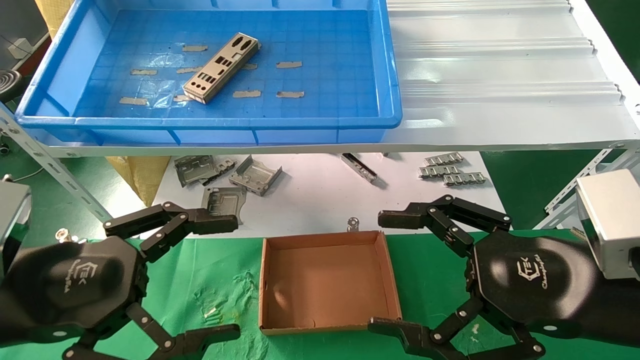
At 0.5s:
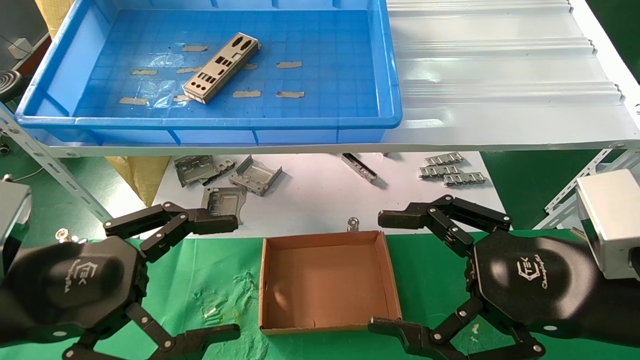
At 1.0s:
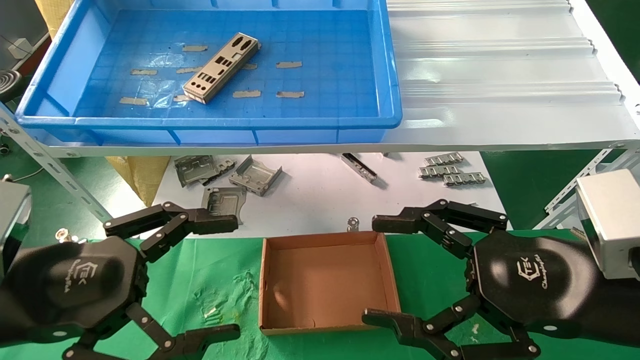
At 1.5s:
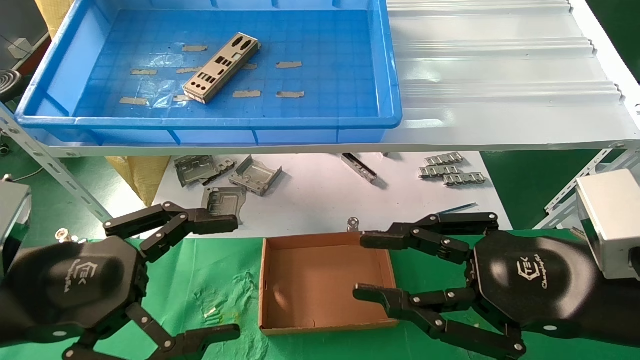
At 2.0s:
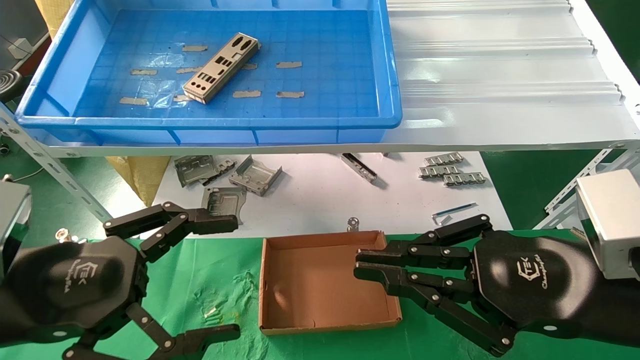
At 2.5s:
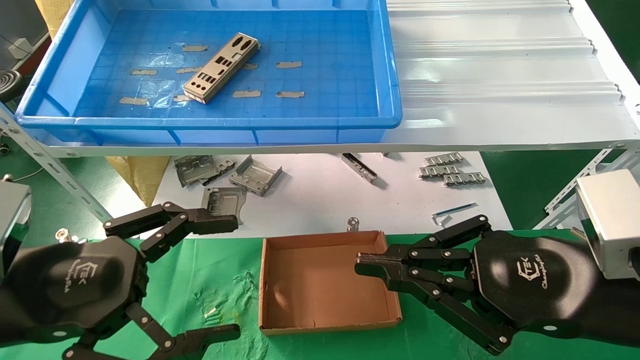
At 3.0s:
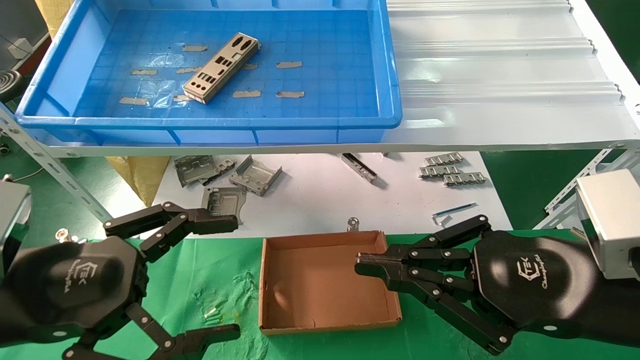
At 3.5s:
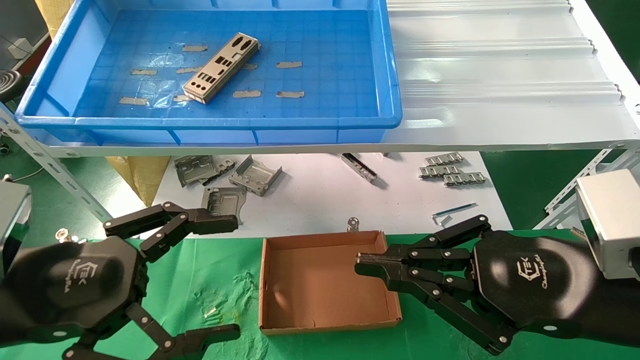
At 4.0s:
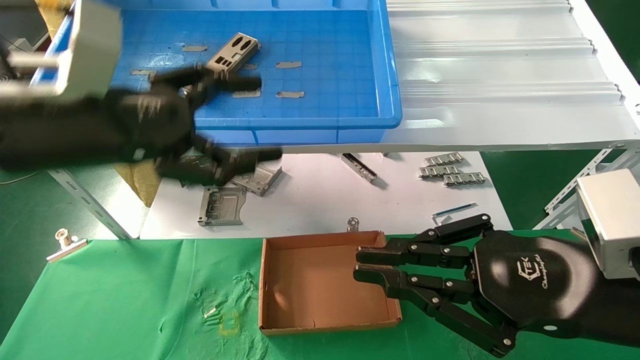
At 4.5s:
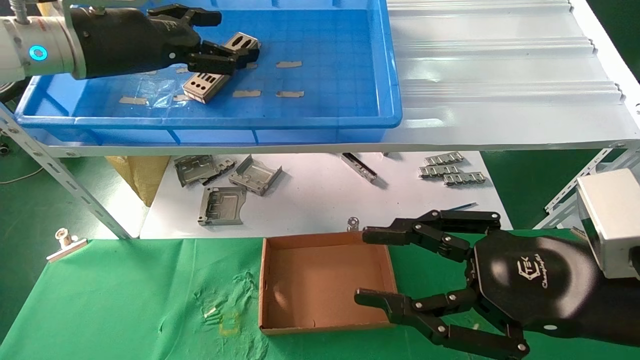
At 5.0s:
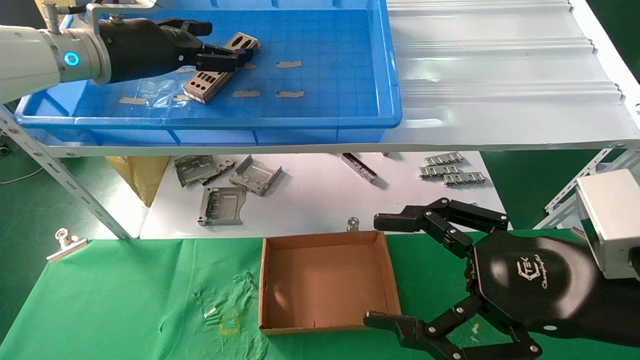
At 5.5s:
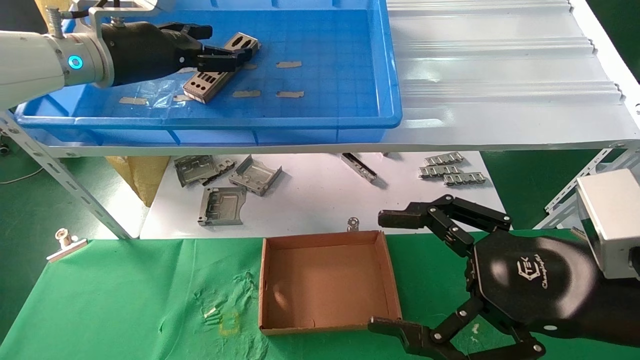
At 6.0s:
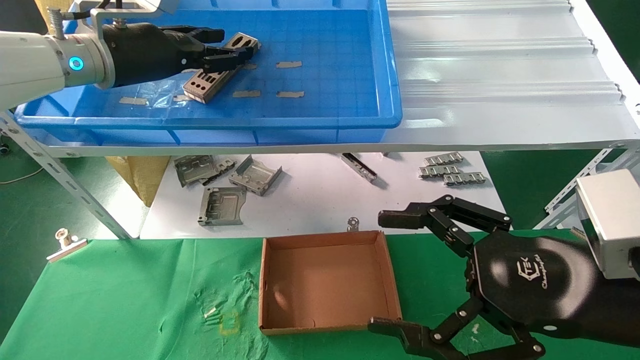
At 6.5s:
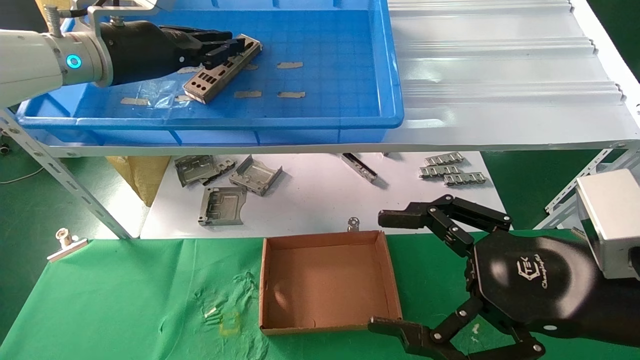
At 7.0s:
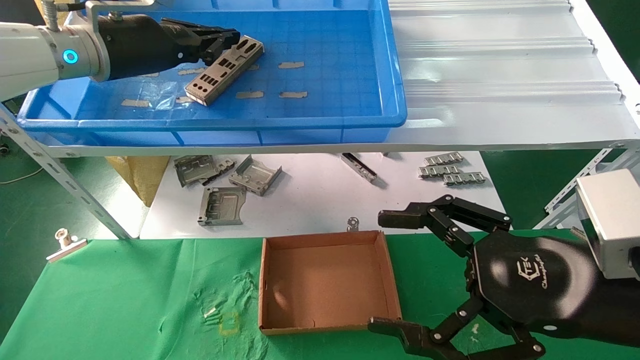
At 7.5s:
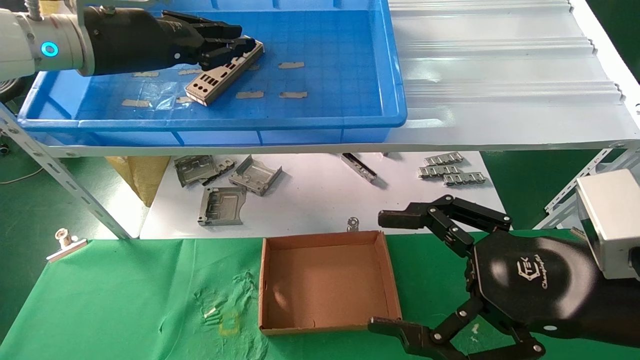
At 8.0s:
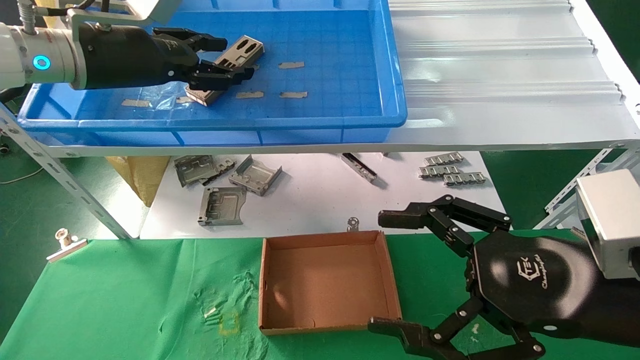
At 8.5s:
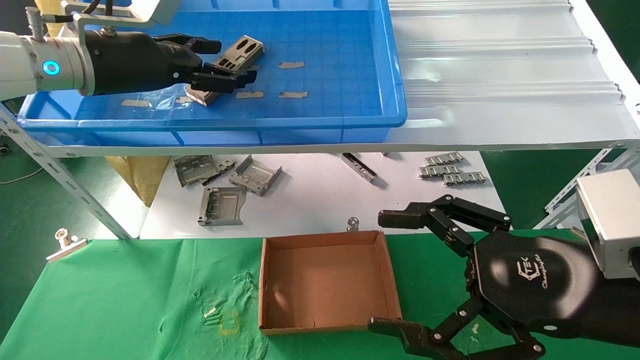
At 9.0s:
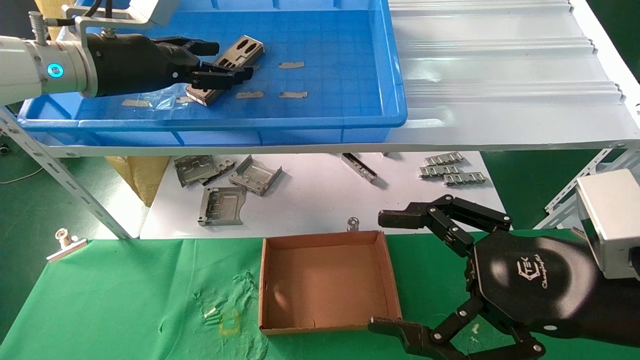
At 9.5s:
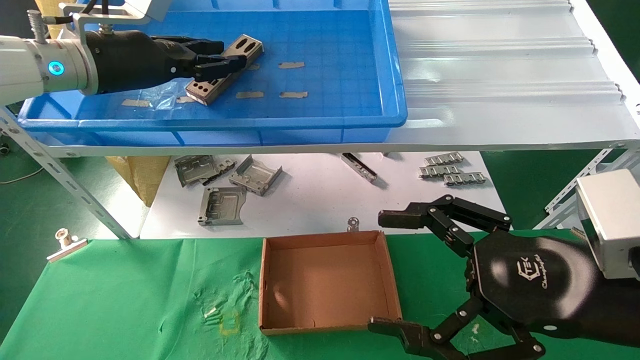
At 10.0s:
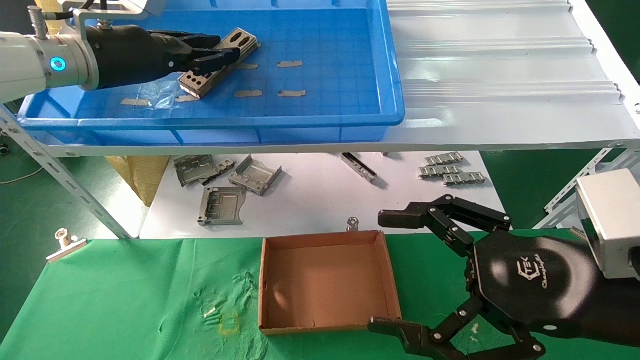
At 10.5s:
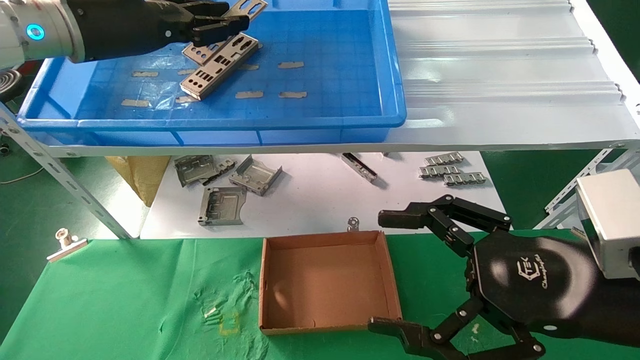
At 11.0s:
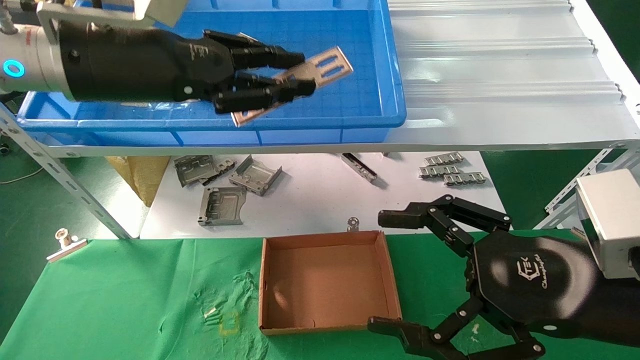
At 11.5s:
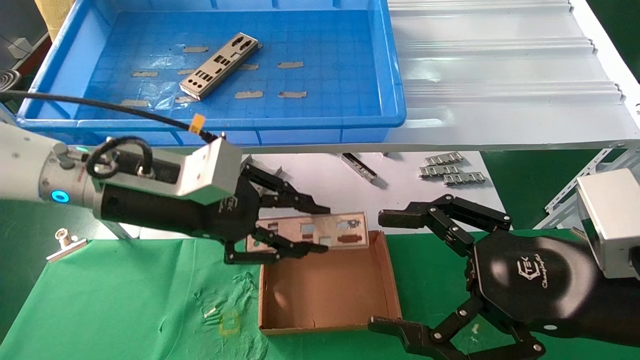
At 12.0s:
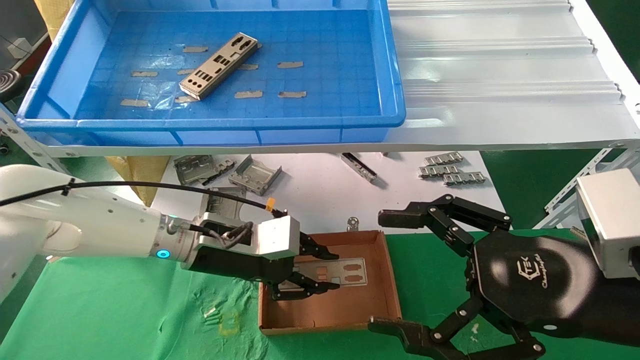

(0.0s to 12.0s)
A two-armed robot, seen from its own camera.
Task of the whole recording: pick up the parts on the tray and put them in the cardboard box.
Step, 4.5s - 10.0s: Pick up the IO bracket from the container box.
0.0s - 2.0s: The right gripper closes its fingers.
2.0s - 4.0s: The left gripper travels upward and forward by approximately 15 cm.
4.0s - 6.0s: The right gripper opens up; the left gripper is displaced forward and upward by roughly 15 cm.
6.0s - 8.0s: The left gripper closes, then reopens.
8.0s - 10.0s: The left gripper opens, then closes again.
10.0s - 12.0s: The left gripper shifts about 25 cm downward and to the right.

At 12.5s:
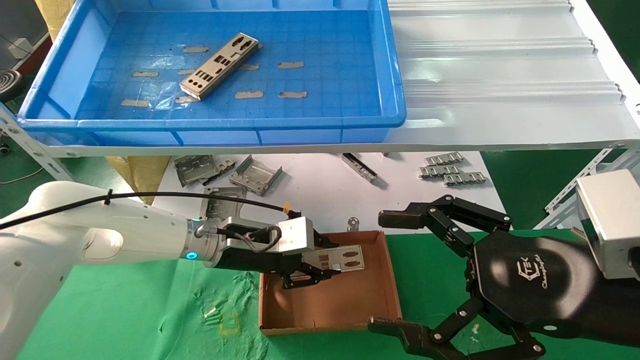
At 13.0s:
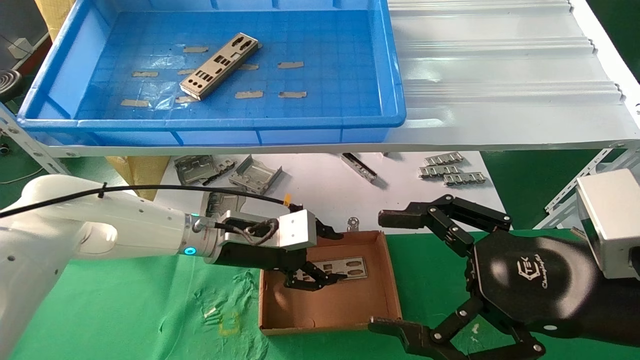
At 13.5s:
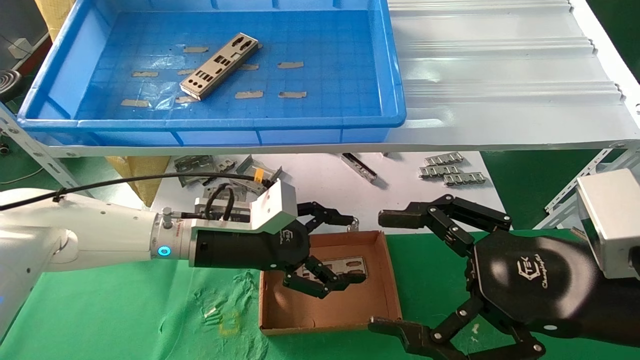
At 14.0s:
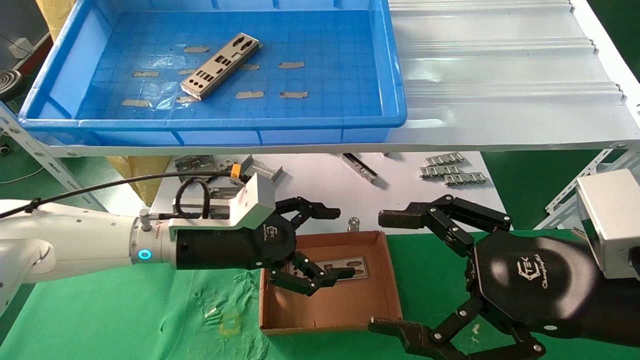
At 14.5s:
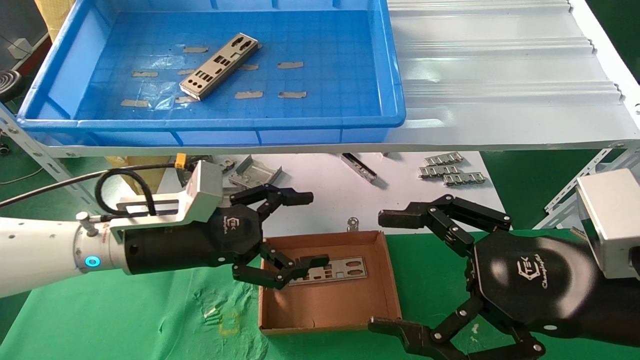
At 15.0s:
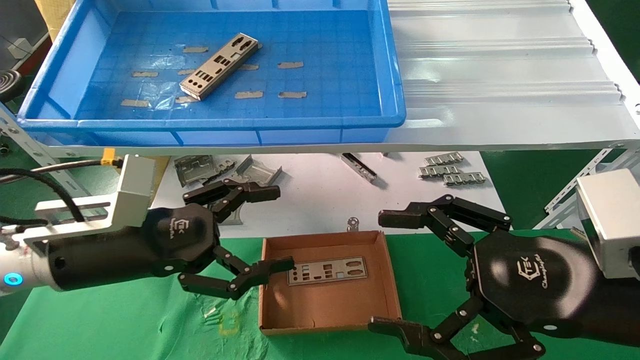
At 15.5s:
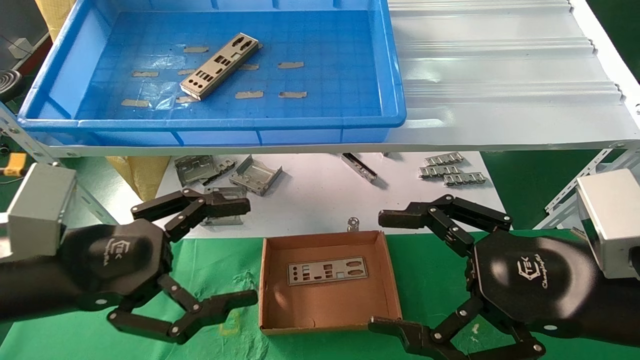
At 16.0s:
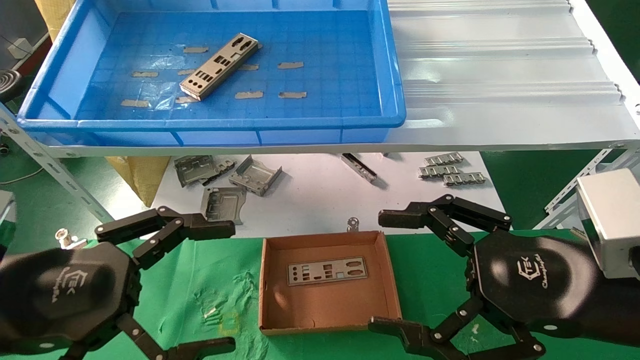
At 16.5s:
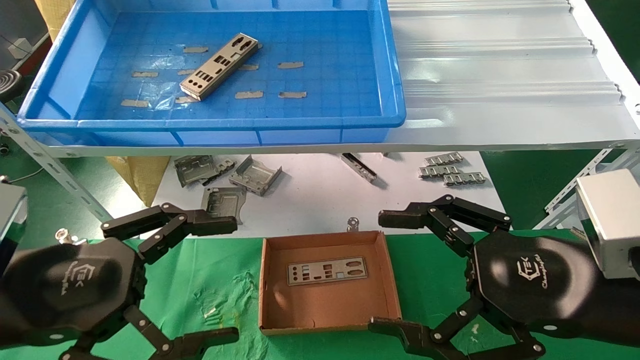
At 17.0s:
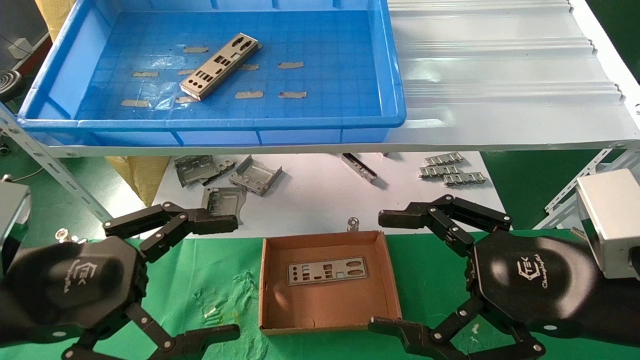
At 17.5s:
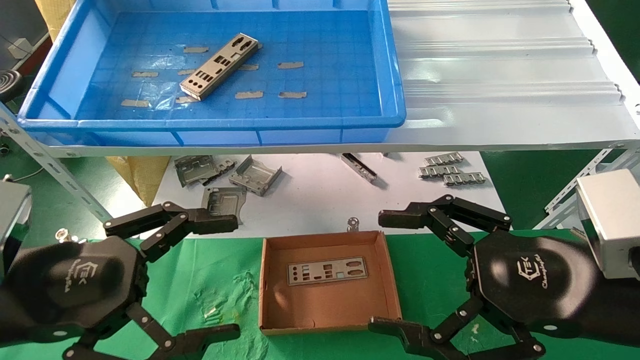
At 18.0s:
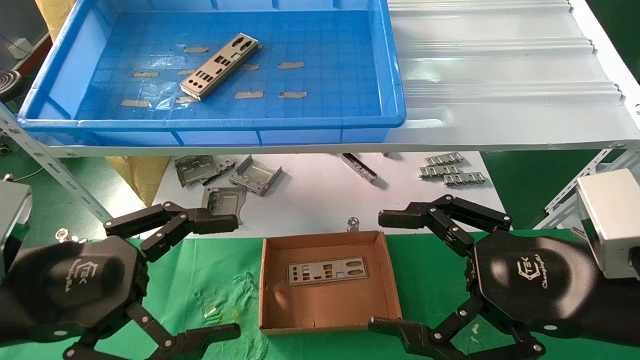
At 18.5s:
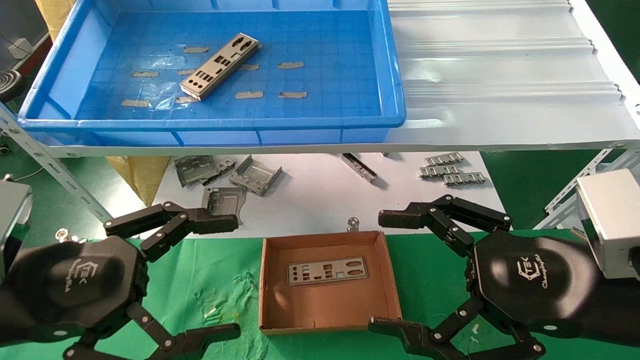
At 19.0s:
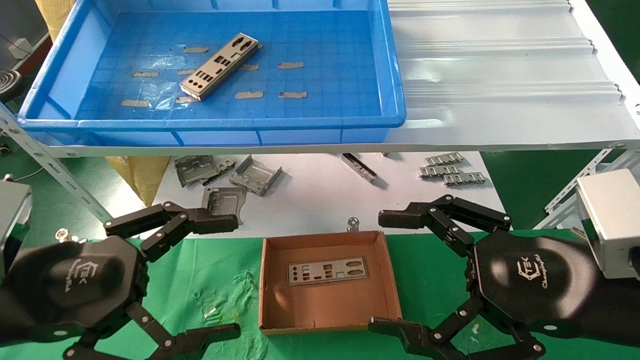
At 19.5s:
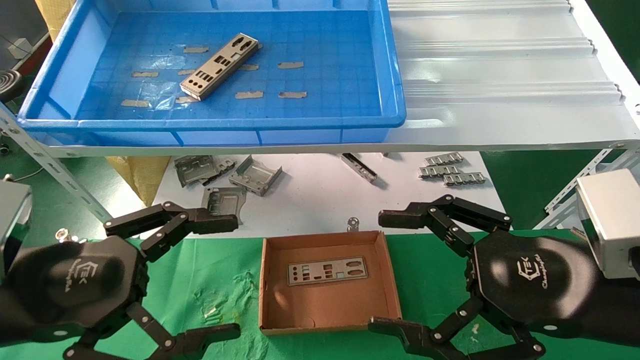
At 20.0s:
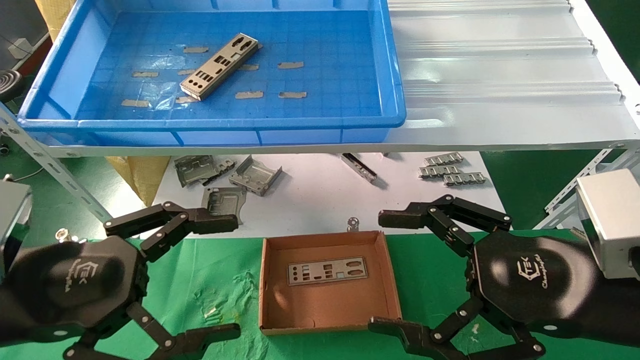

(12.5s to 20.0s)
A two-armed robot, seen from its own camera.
Task of the whole recording: pick up the parts on the tray and put them in the cardboard box.
12.5s - 14.5s: The left gripper is displaced backward and to the left by some 10 cm, and opens its fingers.
14.5s - 16.5s: The left gripper moves backward and to the left, some 15 cm.
16.5s - 20.0s: Neither gripper changes place.
